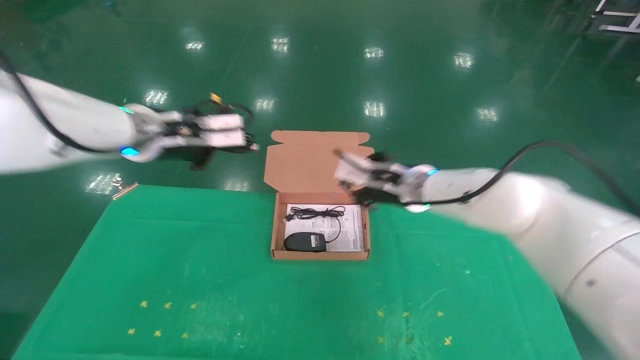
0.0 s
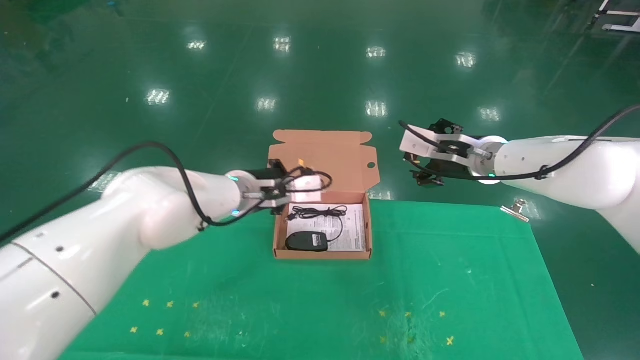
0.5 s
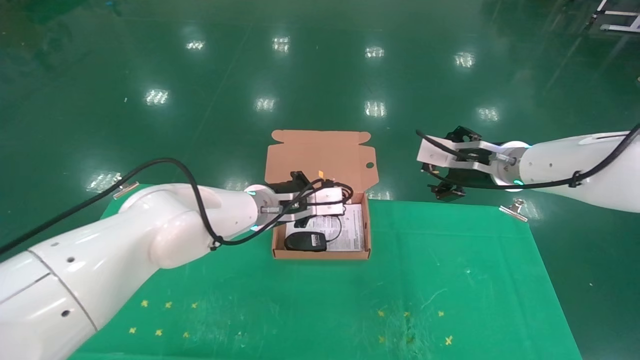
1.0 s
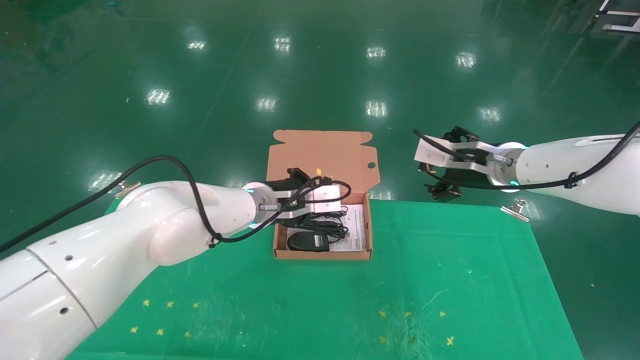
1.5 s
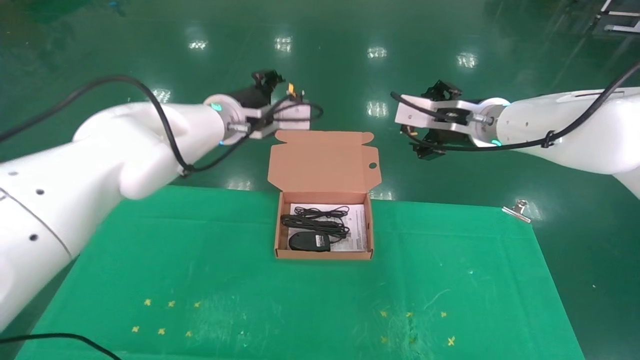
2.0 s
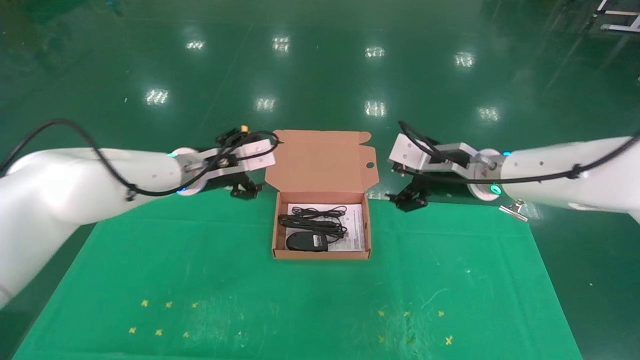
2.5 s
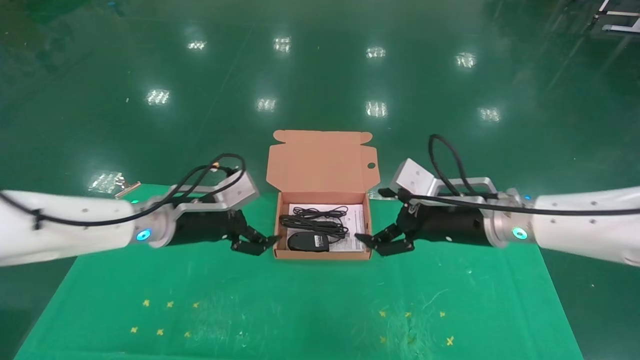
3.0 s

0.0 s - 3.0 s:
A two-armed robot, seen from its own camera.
Task of the whole recording: grasp data cable left put into box grasp mouse right put into box.
Step, 0.0 s - 2.0 s: Place the mouse and power cord into the box.
0.0 s - 1.5 s: The right gripper shifts roughly 15 cm to the right and upward, and opens its fingers. The left gripper heads to the right and downward, covering some 20 cm.
1.5 s - 3.0 s: The right gripper heads backward and downward, covering some 10 cm; the left gripper goes approximately 15 cm to the left and backward, and opens its fingers.
